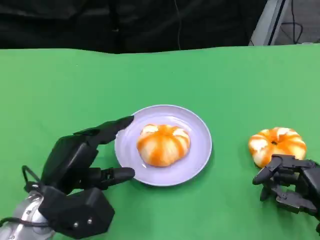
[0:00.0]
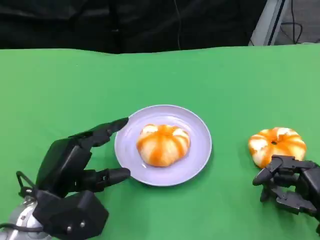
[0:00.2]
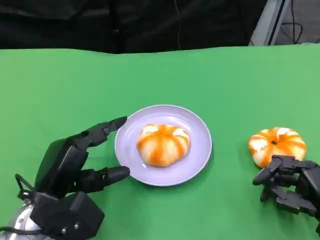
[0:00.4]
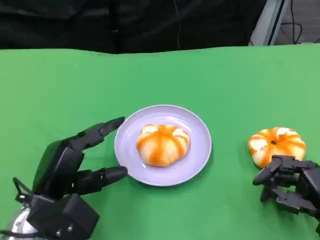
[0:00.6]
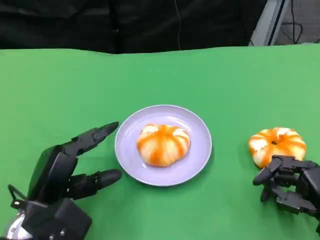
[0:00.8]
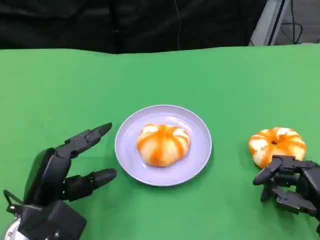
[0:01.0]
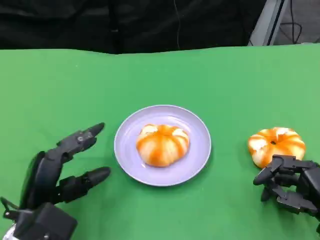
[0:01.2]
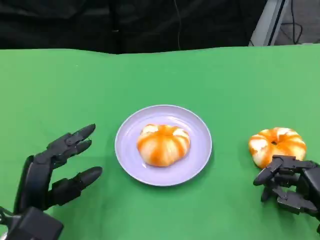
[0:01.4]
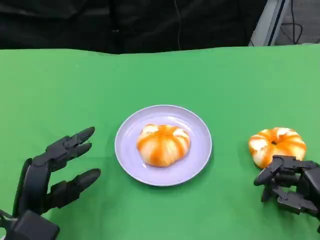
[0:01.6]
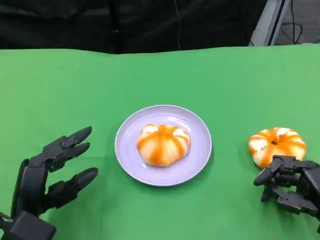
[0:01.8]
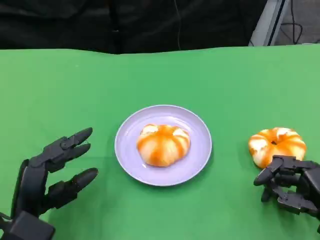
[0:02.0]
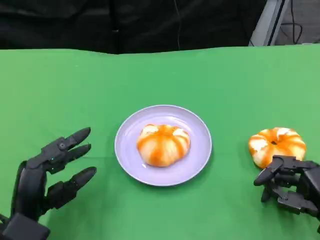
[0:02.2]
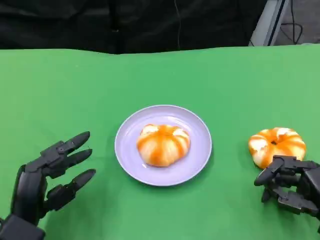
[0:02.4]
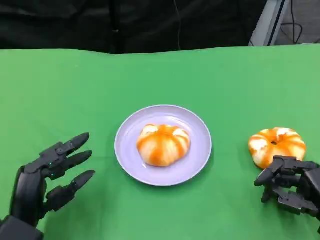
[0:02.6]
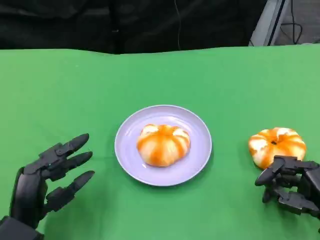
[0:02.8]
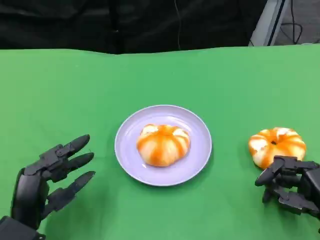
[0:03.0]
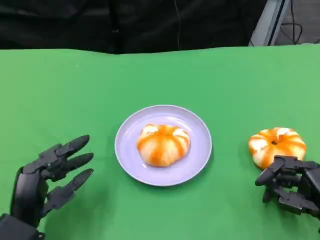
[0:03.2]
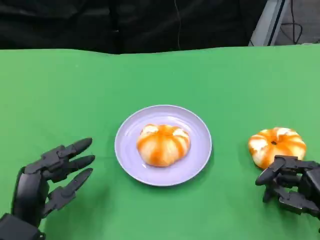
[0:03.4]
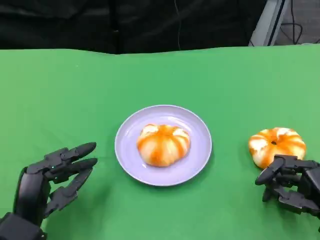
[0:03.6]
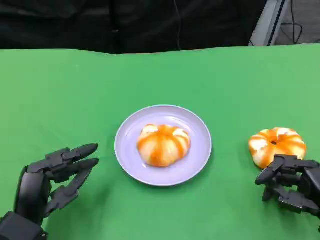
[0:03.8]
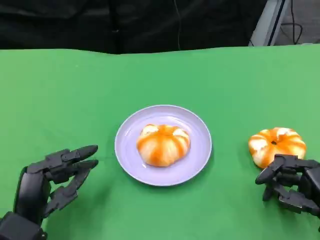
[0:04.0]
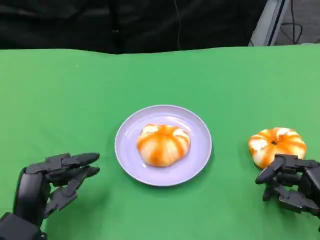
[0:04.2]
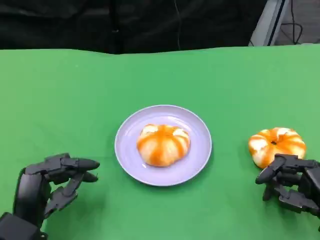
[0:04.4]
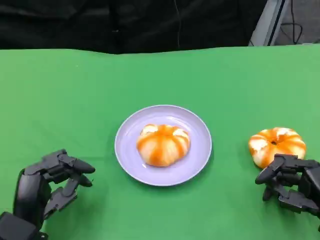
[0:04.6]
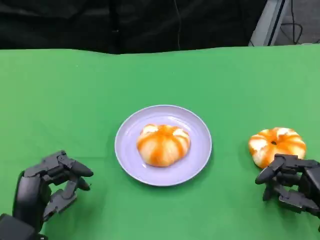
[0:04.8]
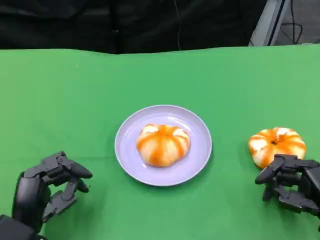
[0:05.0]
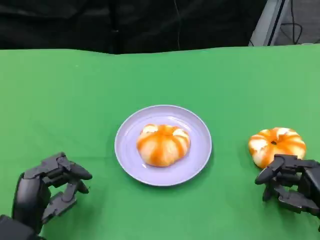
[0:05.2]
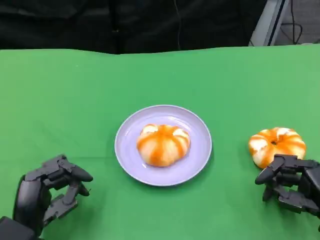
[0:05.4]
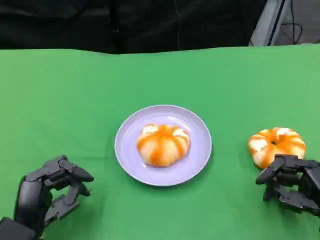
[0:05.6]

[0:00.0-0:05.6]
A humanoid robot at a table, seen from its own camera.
Task of the whole recording: Grasp the bread from the table and place it into the plate.
0:00.0 to 0:01.4: The left hand shifts by approximately 5 cm.
0:01.4 to 0:02.8: The hands make only small movements.
0:02.8 to 0:04.2: Neither hand changes place.
0:04.2 to 0:05.6: Neither hand changes place.

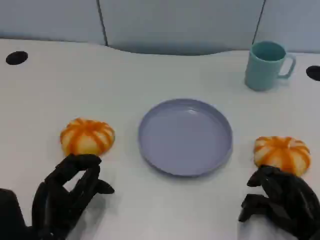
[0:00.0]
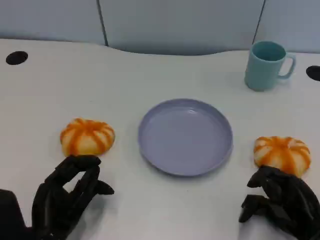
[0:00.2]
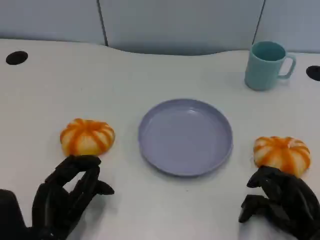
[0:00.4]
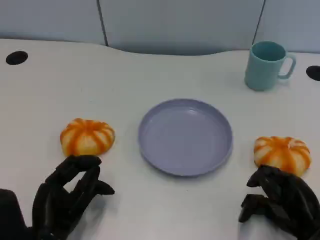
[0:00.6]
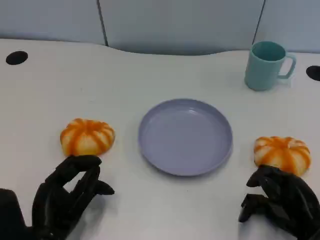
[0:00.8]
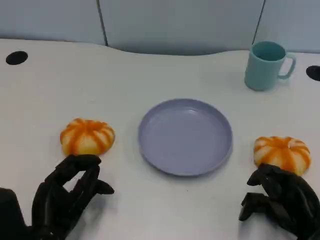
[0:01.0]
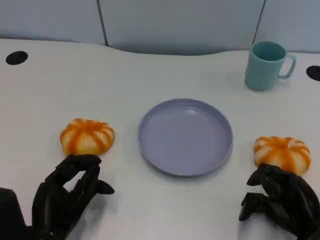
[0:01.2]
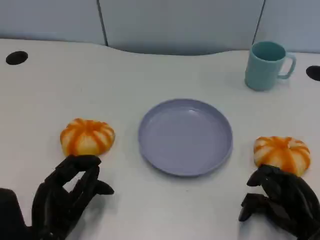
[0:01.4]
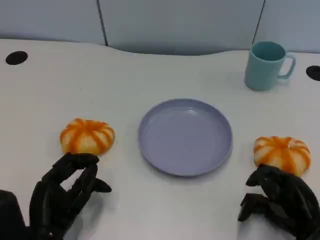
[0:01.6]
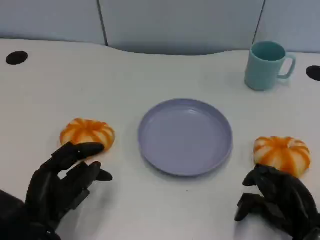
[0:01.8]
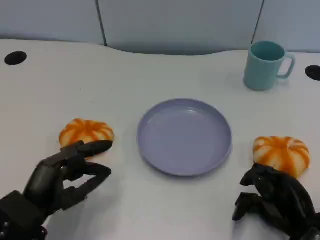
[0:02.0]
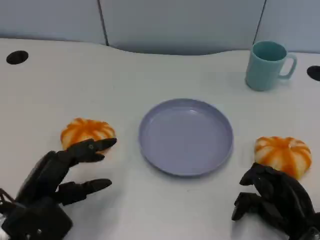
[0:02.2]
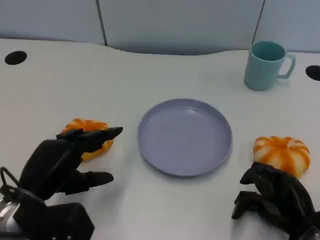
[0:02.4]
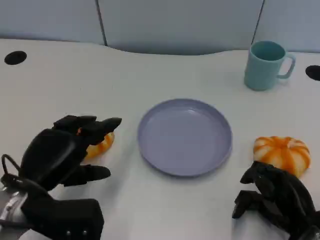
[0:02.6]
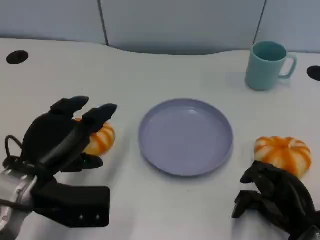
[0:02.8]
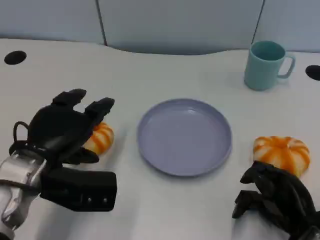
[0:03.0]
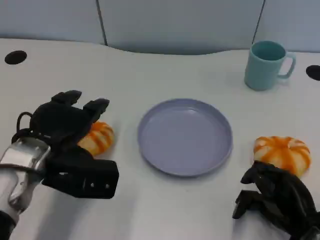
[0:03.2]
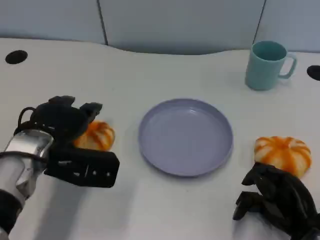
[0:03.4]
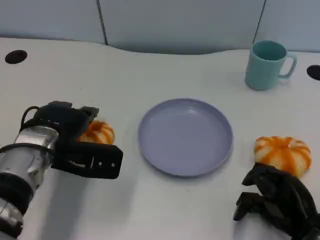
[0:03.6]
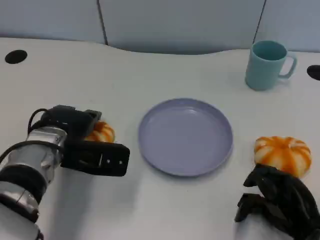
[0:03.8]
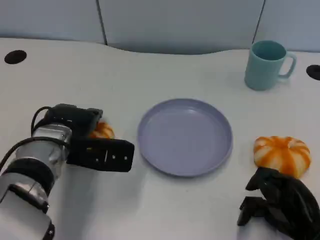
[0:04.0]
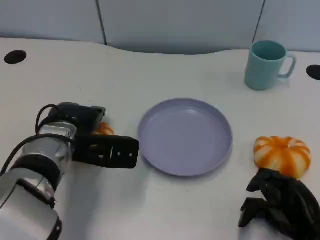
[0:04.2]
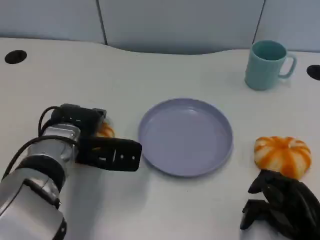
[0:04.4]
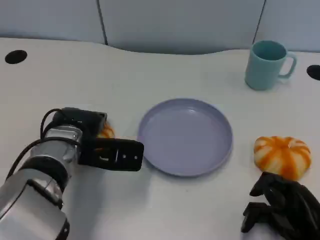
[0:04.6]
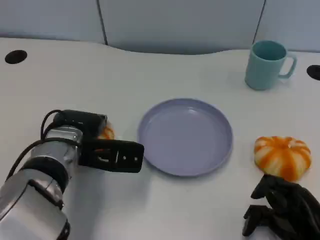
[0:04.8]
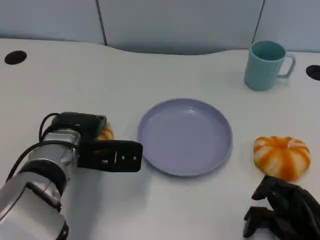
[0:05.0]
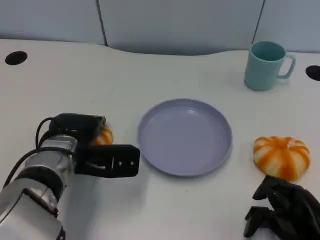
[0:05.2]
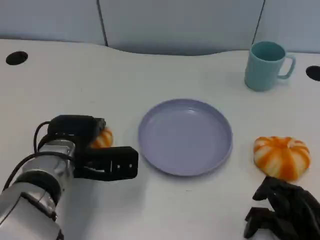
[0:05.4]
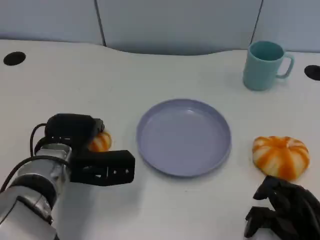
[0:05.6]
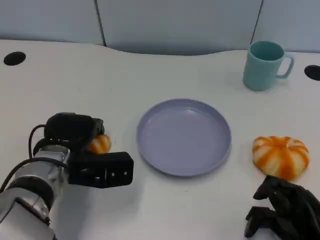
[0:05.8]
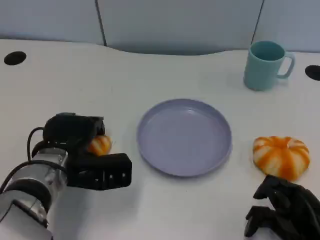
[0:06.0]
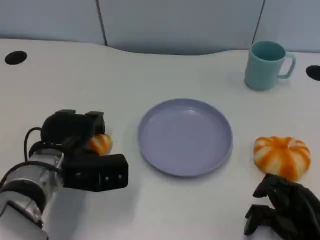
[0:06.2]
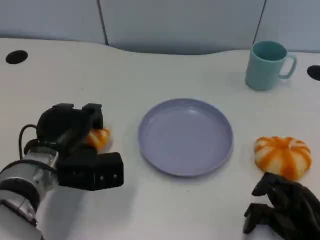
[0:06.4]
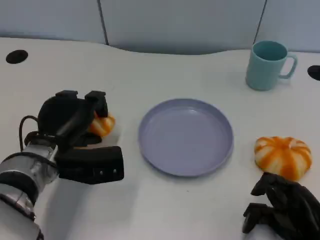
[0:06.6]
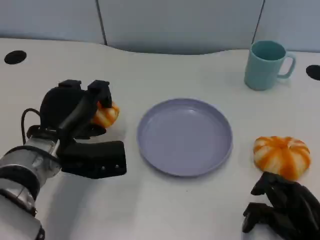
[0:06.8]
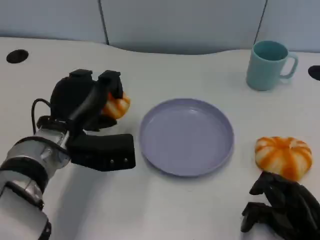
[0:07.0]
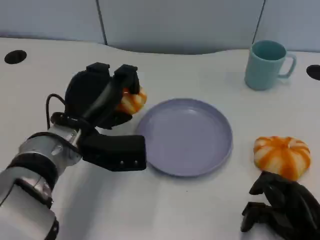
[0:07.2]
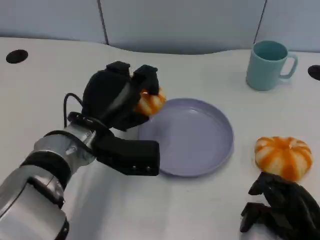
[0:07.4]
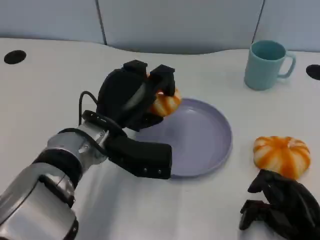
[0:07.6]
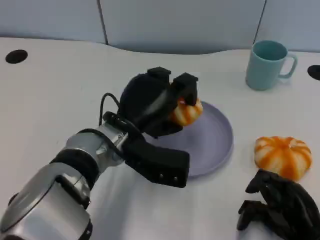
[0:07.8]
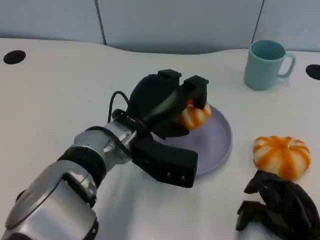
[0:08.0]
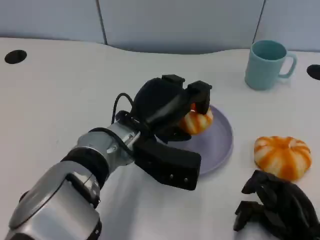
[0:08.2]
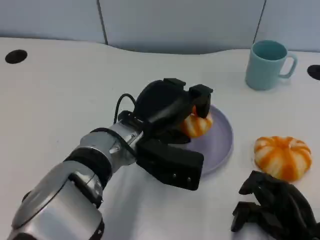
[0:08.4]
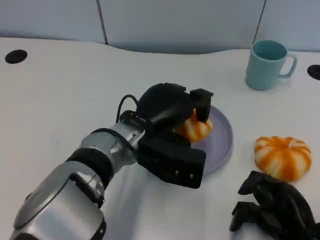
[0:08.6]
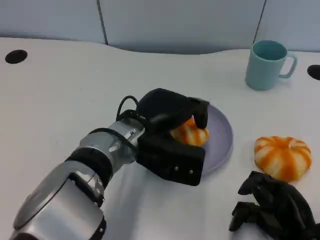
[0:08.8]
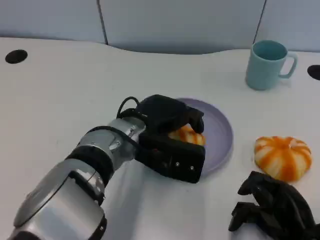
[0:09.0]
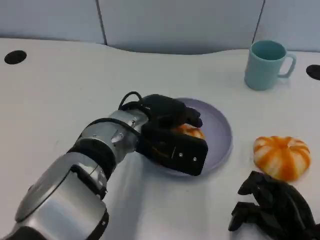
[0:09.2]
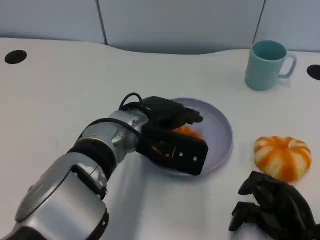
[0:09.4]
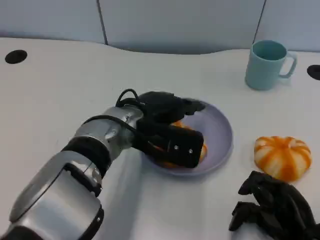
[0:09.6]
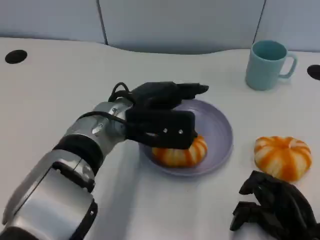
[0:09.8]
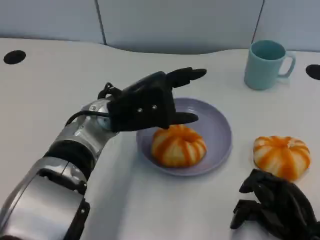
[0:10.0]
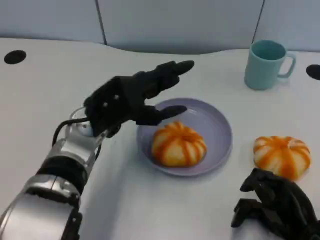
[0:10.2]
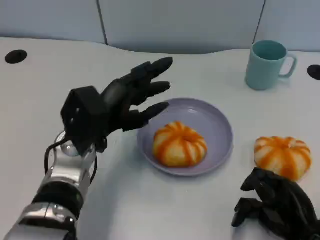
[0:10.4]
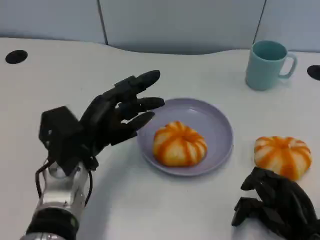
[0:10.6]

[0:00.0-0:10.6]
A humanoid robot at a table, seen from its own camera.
Task of the whole recording: Grasp the bread from the table and place it into the plate.
0:00.0 to 0:01.6: The hands stay close to where they were, moving slightly.
0:01.6 to 0:03.0: The left hand shifts roughly 10 cm upward and forward.
0:03.0 to 0:04.6: The left hand moves forward, approximately 5 cm.
0:06.0 to 0:07.6: The left hand is displaced to the right by roughly 5 cm.
0:09.0 to 0:10.6: The left hand moves to the left, some 10 cm.

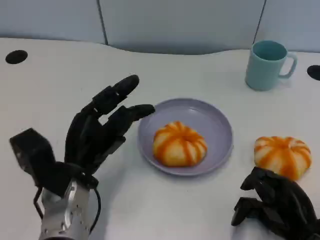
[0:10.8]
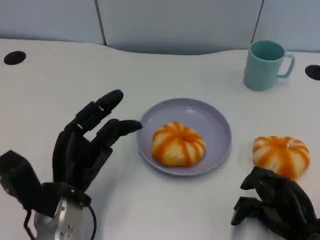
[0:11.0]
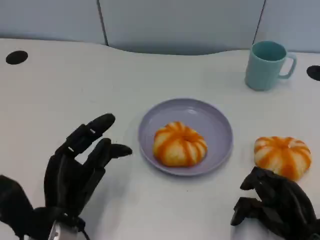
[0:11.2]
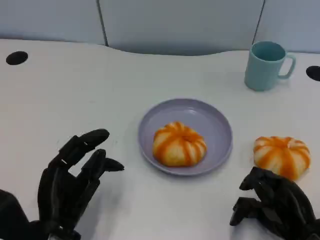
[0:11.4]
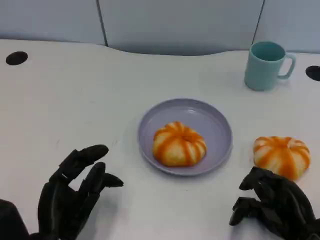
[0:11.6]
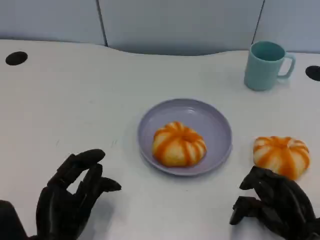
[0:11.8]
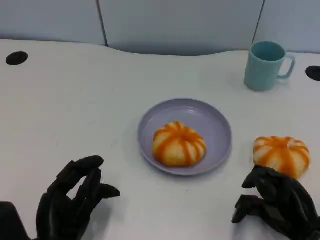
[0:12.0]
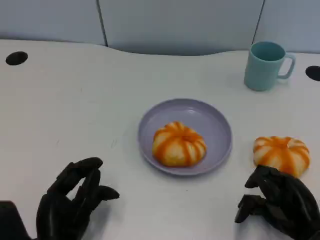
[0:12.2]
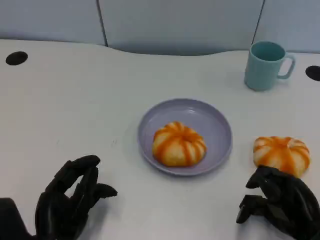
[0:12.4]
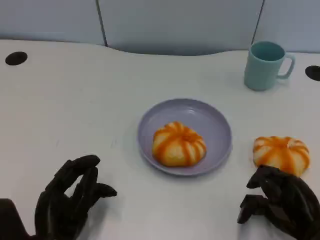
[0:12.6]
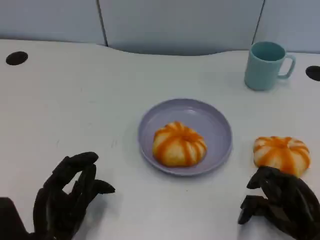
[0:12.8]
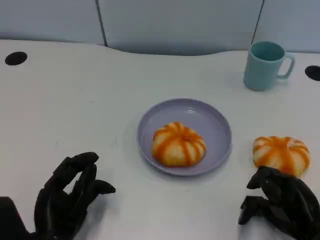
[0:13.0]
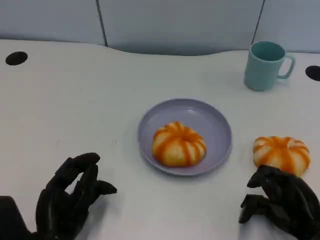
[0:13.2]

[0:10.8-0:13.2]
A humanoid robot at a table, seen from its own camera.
Task of the whole recording: Grasp the bread from the table and place it into the plate.
0:10.8 to 0:12.0: The left hand moves backward, roughly 10 cm.
0:12.0 to 0:13.2: The hands stay close to where they were, moving slightly.

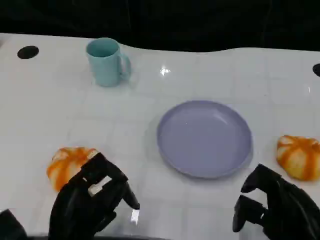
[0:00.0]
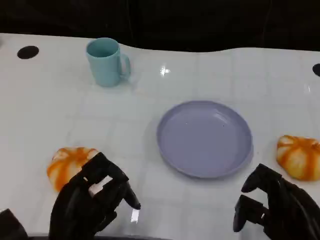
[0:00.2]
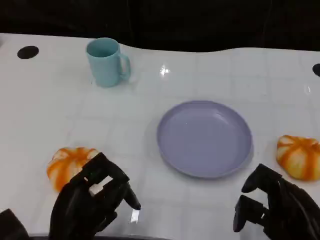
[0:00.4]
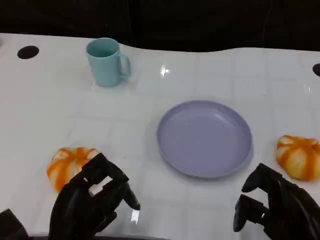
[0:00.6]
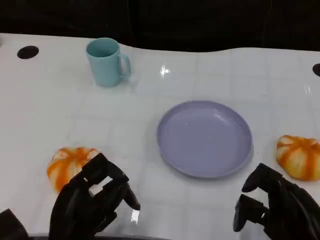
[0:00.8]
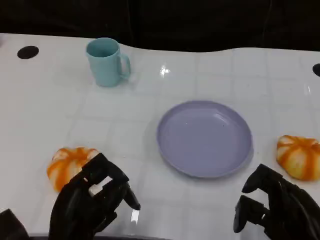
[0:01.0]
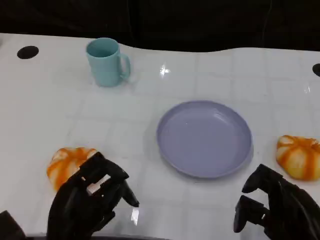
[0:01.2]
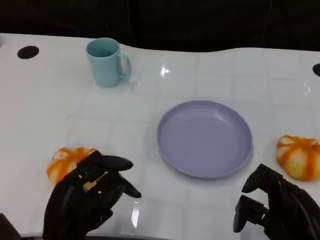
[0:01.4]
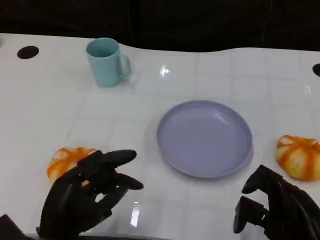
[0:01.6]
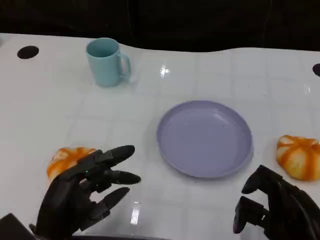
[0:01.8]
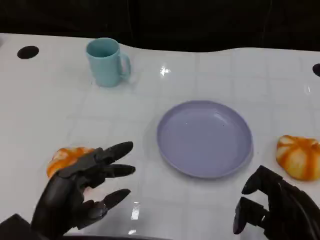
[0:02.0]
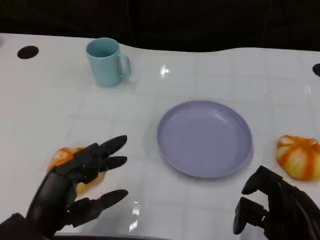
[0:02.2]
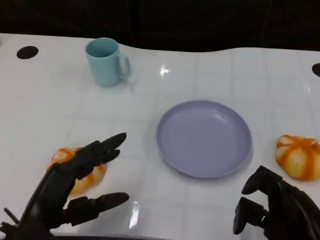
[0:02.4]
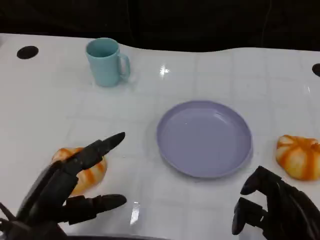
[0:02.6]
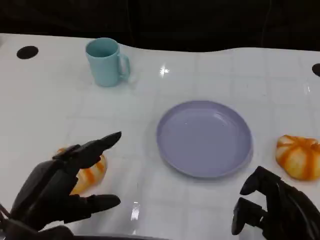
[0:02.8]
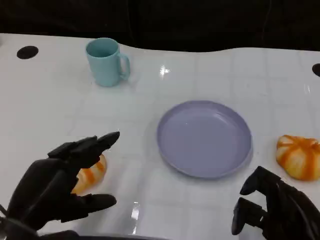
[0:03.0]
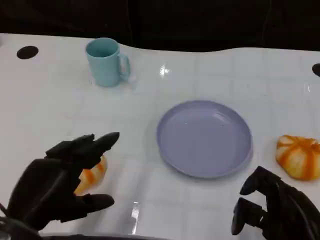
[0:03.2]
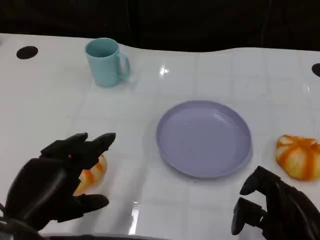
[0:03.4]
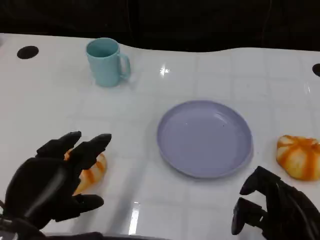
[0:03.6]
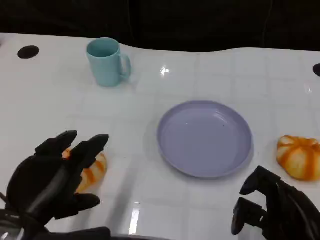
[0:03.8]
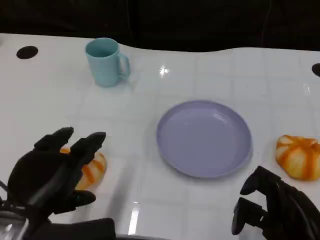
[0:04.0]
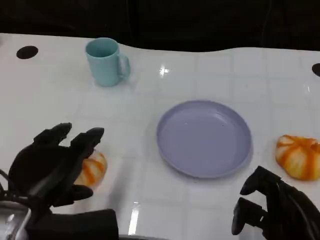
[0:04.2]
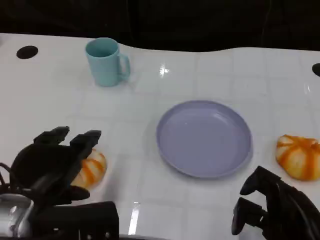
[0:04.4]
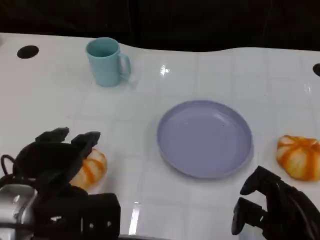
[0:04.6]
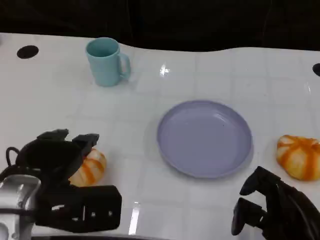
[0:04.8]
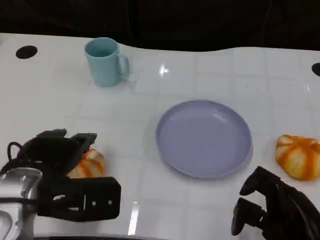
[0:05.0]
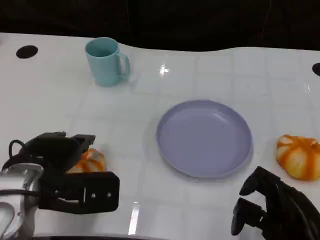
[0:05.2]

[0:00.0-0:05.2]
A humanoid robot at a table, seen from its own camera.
Task of the whole recording: Grasp the bread from the table and place it into the plate.
0:01.8 to 0:03.4: The left hand is displaced upward by roughly 5 cm.
0:03.4 to 0:05.2: The left hand heads forward, covering about 10 cm.
